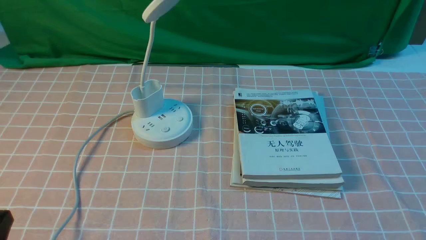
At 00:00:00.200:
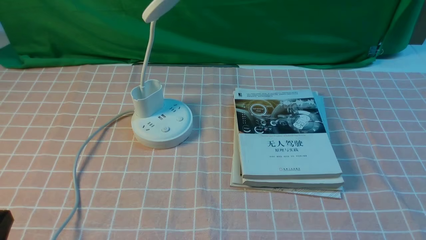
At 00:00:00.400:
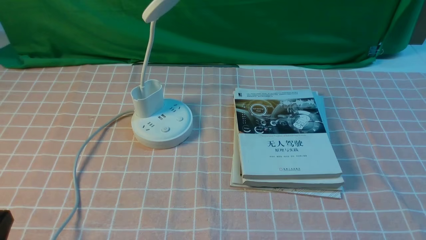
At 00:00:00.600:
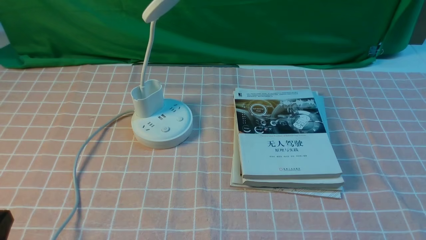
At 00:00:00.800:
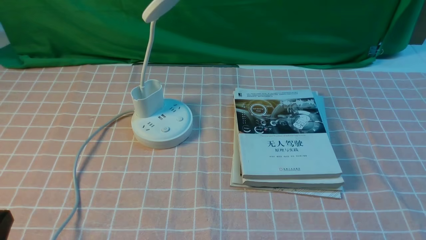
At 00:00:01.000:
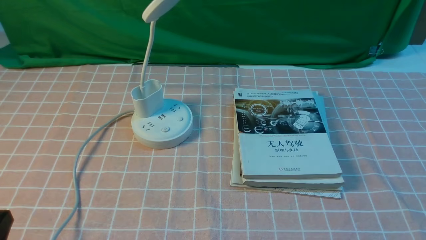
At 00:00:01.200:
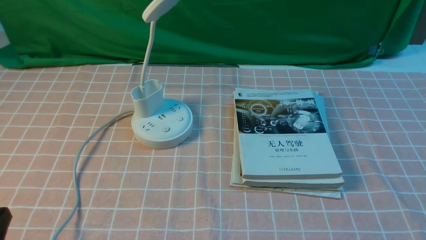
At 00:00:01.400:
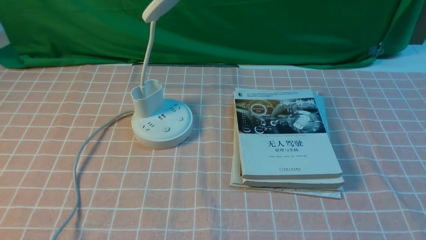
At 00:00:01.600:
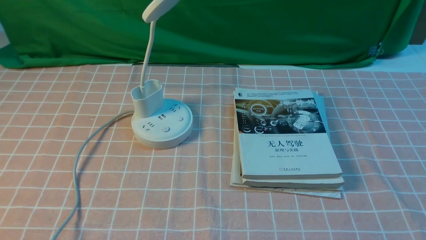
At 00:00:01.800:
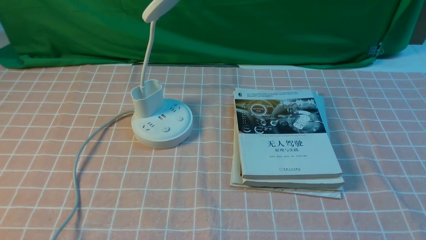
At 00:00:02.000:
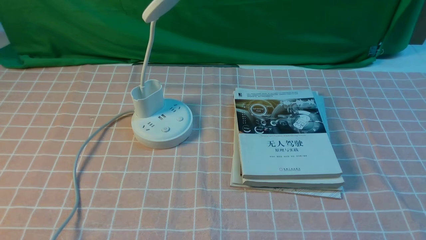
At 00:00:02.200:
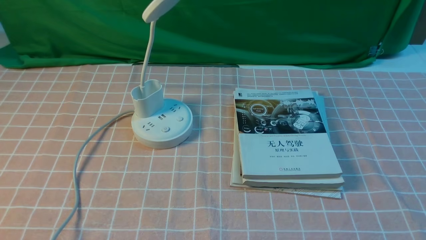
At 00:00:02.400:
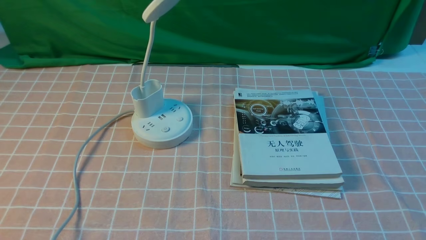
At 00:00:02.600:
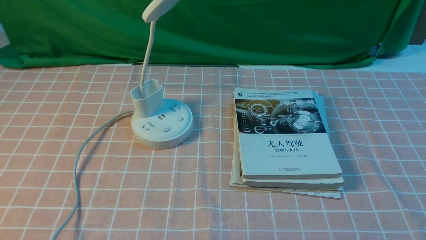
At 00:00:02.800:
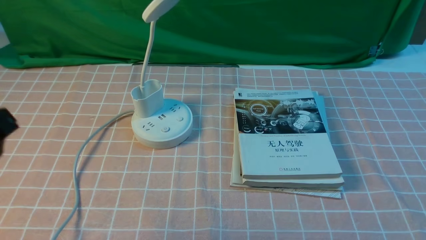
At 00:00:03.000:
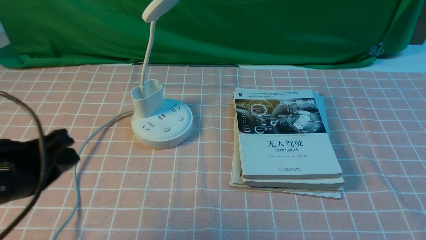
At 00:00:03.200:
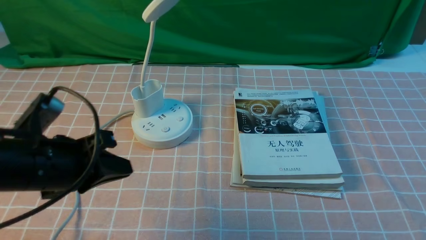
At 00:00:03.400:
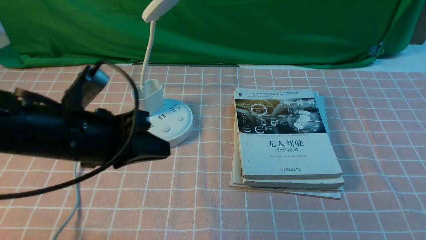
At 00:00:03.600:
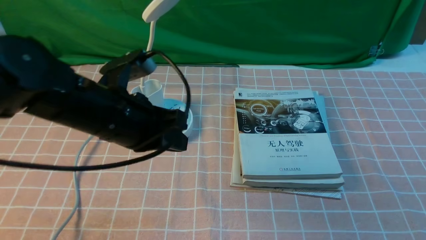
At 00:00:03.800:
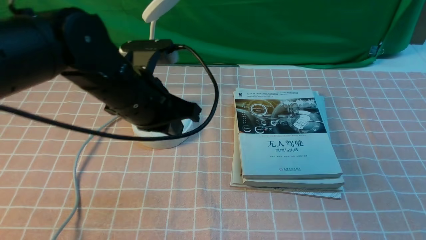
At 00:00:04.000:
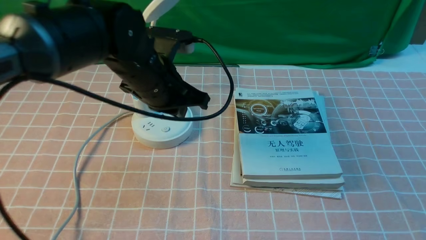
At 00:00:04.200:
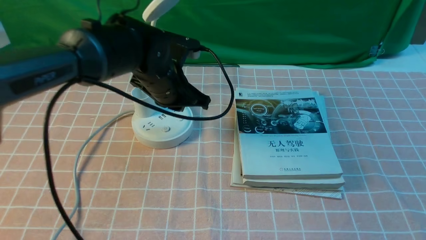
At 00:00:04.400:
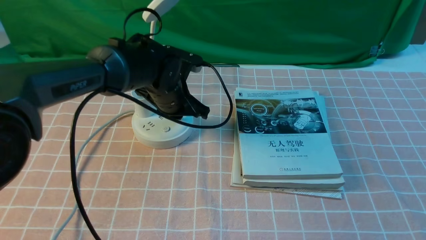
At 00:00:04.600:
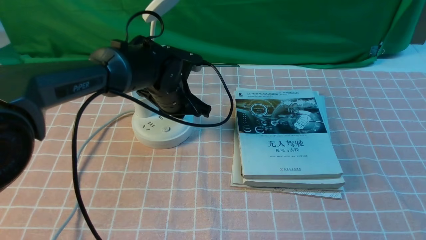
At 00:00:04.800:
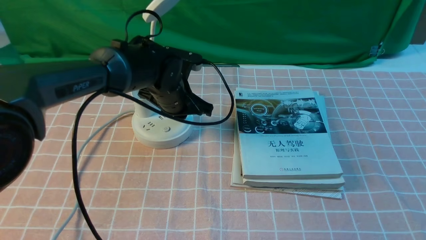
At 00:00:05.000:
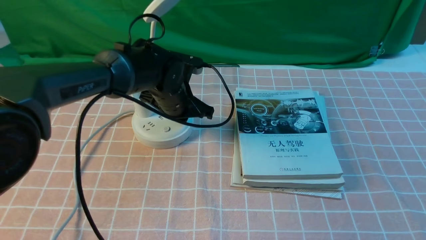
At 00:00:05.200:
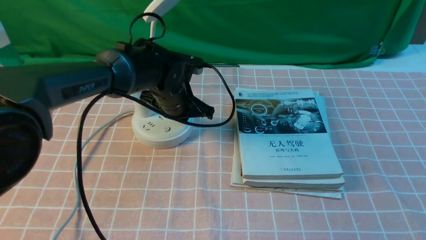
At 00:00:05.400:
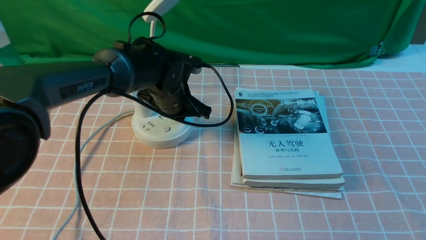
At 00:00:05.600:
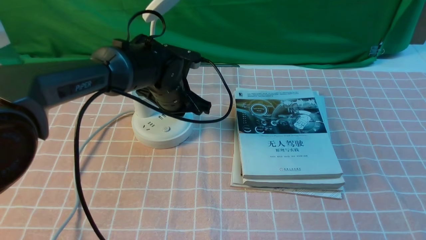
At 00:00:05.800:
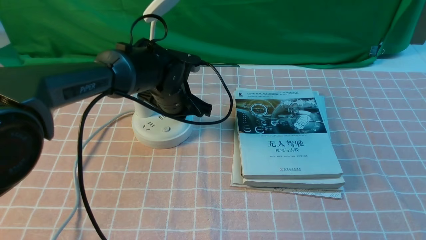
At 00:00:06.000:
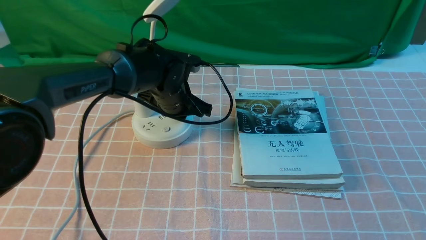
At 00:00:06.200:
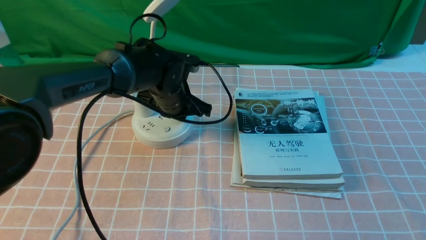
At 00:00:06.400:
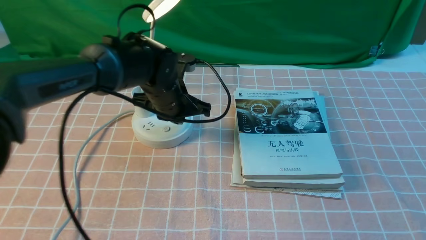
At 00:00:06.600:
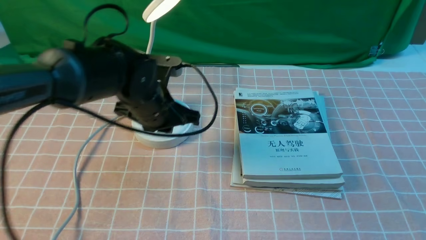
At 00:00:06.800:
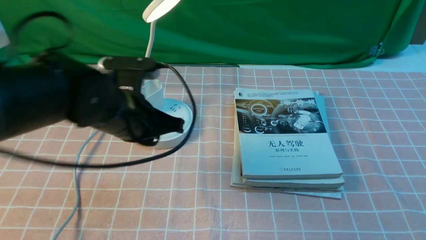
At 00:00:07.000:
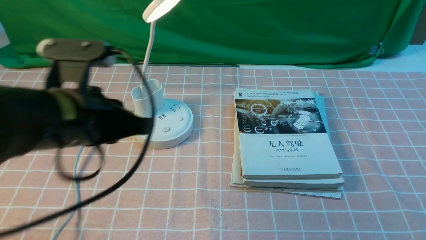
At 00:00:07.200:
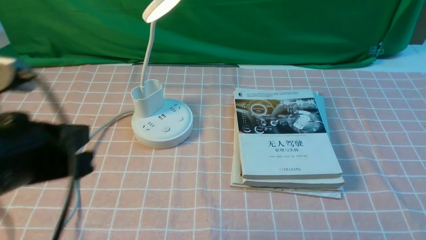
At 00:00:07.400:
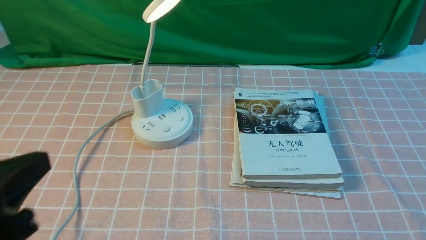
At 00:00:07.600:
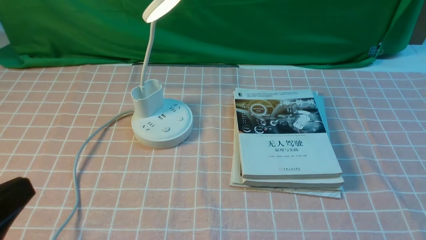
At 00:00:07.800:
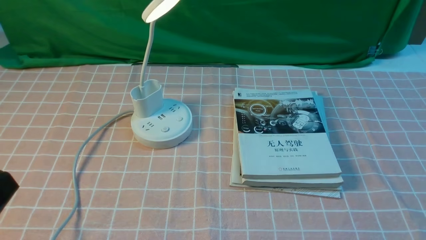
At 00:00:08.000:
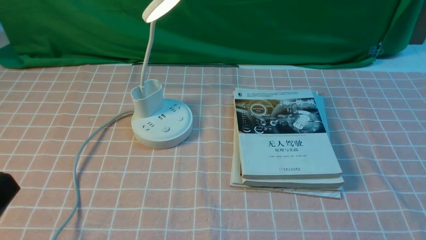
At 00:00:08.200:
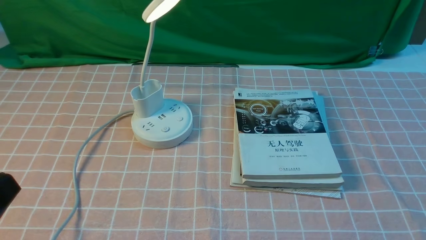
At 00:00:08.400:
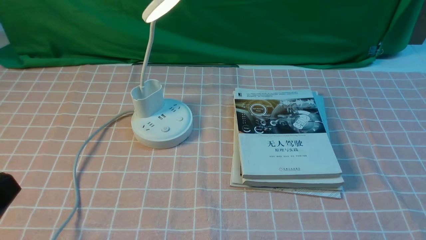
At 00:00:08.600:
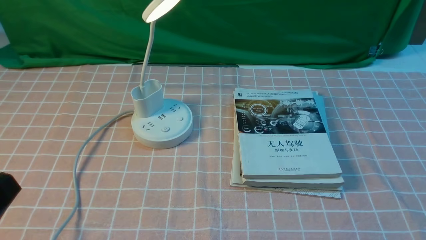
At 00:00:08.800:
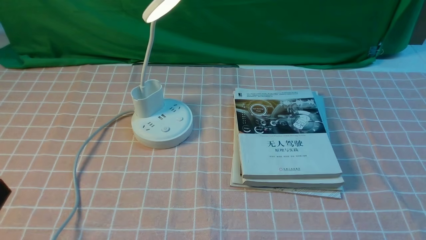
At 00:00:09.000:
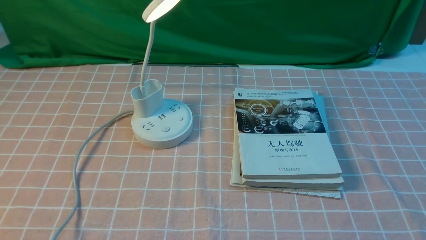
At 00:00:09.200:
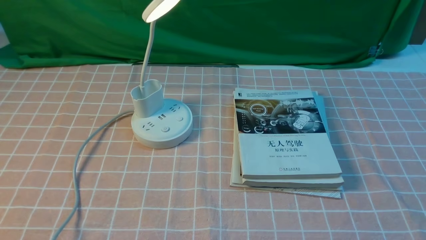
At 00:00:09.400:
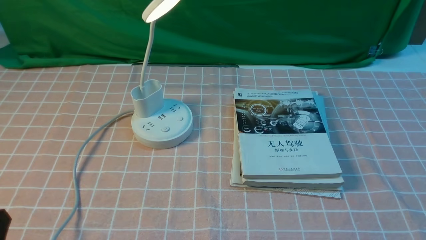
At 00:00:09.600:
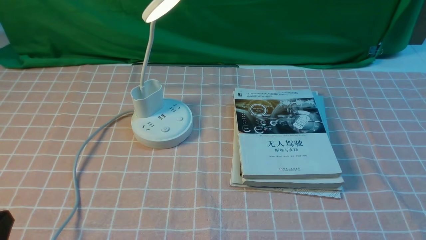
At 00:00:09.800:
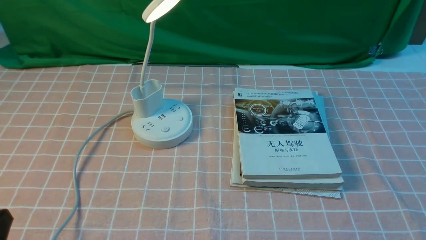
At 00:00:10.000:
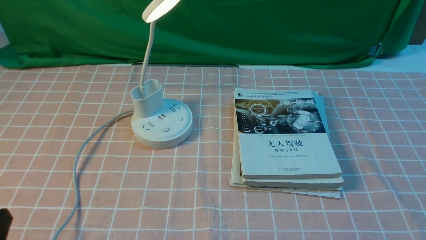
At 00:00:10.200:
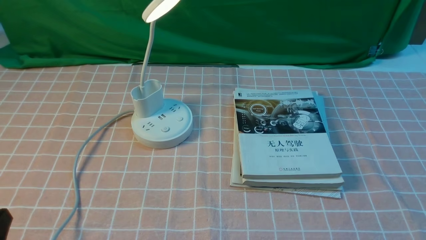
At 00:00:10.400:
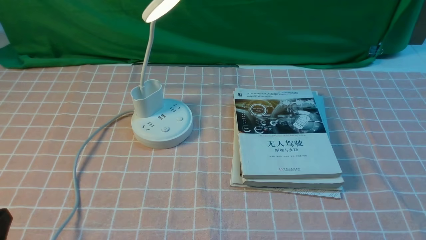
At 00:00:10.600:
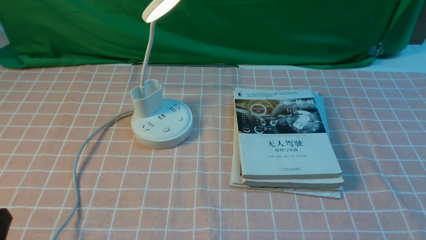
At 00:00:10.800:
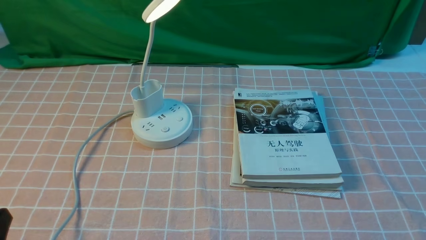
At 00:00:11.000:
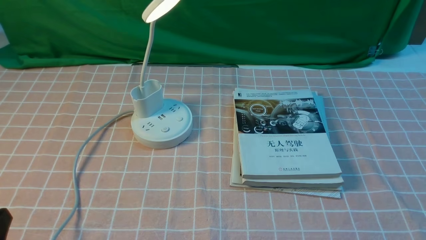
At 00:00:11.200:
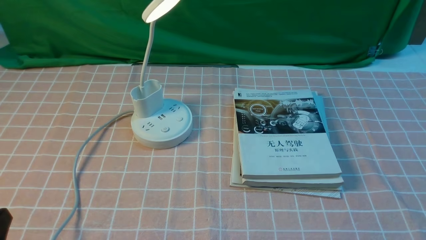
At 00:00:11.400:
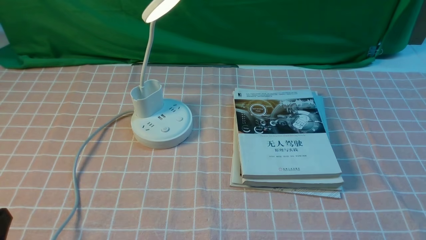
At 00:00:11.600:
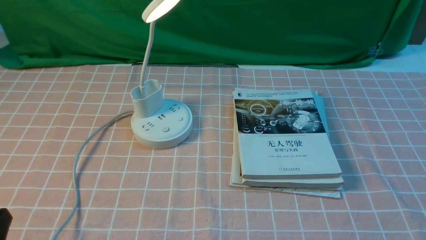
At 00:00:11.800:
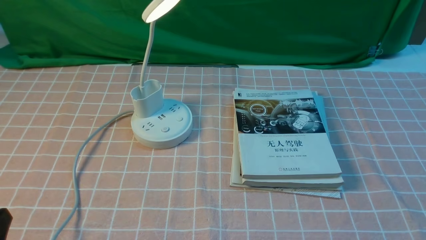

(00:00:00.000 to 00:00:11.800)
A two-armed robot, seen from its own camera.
Step, 00:00:00.000 - 00:00:06.400: use the left arm to press the button switch on the lamp holder.
00:00:01.400 - 00:00:03.000: The left gripper shifts roughly 15 cm forward and upward, and opens up.
00:00:03.000 - 00:00:04.400: The left gripper goes about 30 cm forward and to the right, and opens up.
00:00:04.400 - 00:00:06.000: The grippers stay close to where they were, moving slightly.
00:00:06.000 - 00:00:07.400: The left gripper is displaced backward, to the left and upward by approximately 35 cm.
00:00:07.400 - 00:00:08.800: The left gripper goes about 10 cm backward.
00:00:10.400 - 00:00:11.800: Neither gripper changes place.
